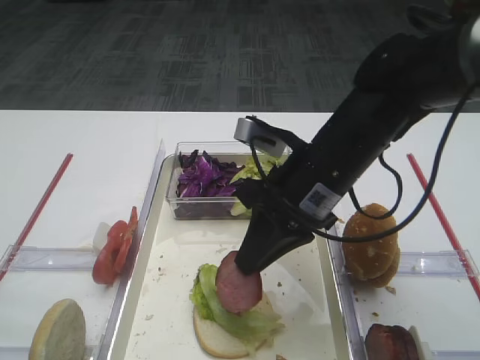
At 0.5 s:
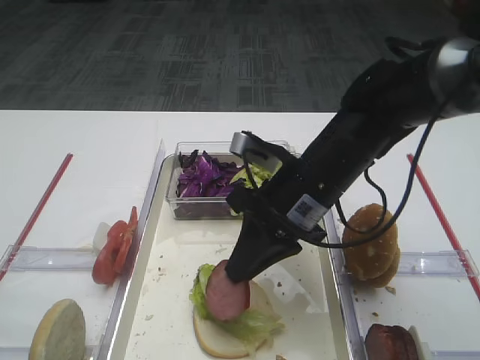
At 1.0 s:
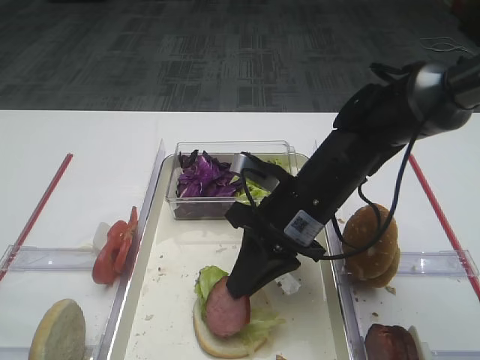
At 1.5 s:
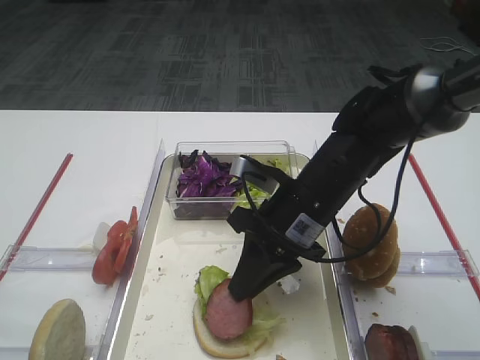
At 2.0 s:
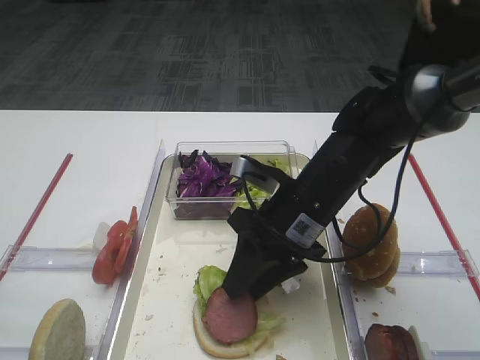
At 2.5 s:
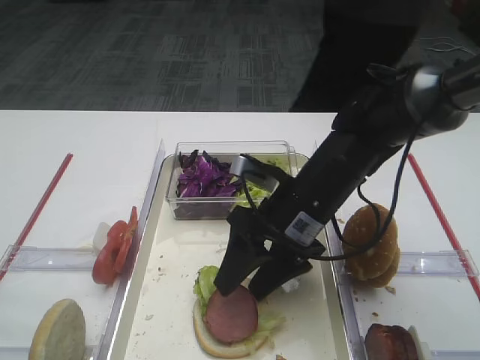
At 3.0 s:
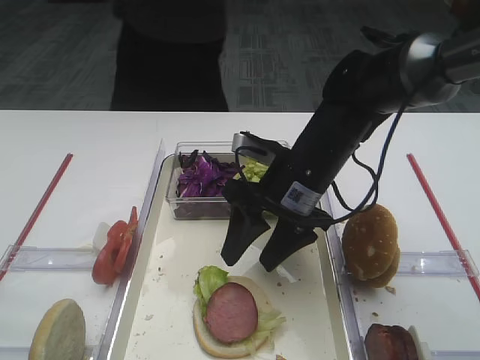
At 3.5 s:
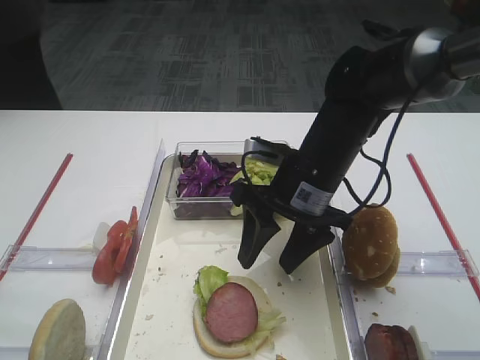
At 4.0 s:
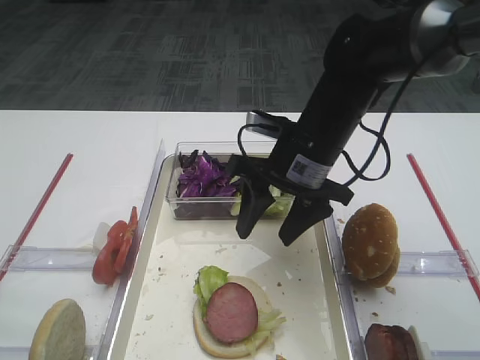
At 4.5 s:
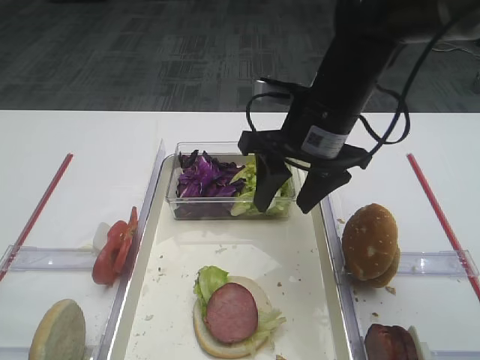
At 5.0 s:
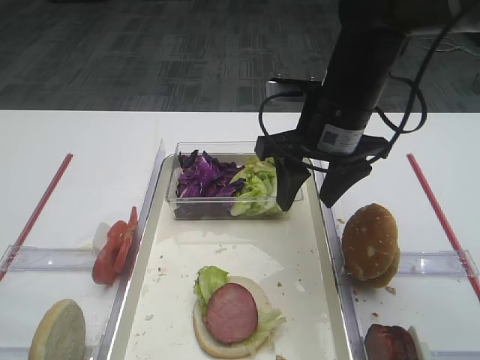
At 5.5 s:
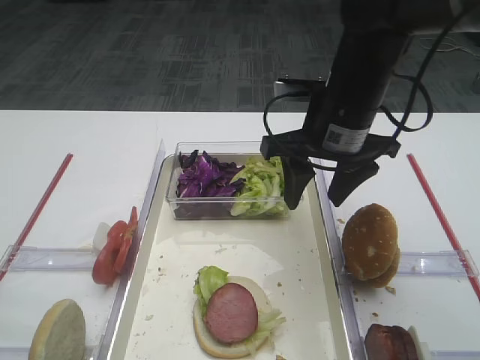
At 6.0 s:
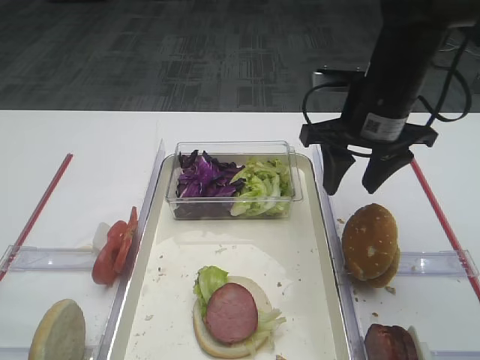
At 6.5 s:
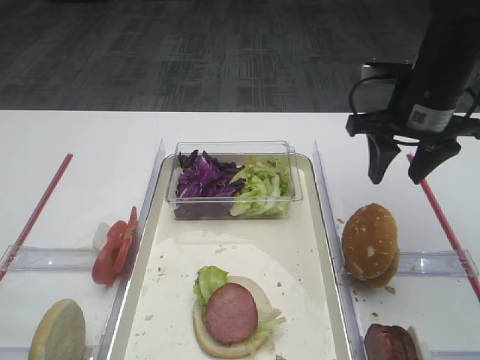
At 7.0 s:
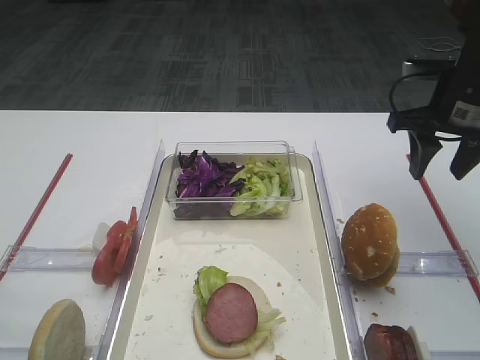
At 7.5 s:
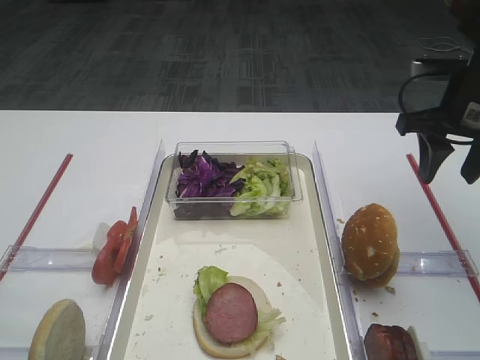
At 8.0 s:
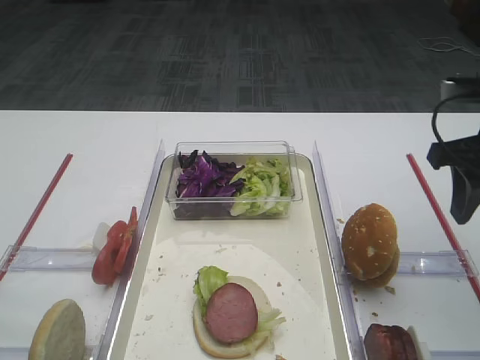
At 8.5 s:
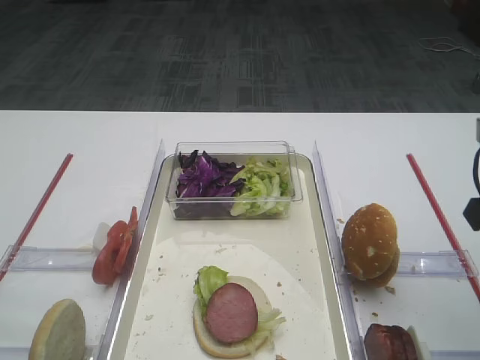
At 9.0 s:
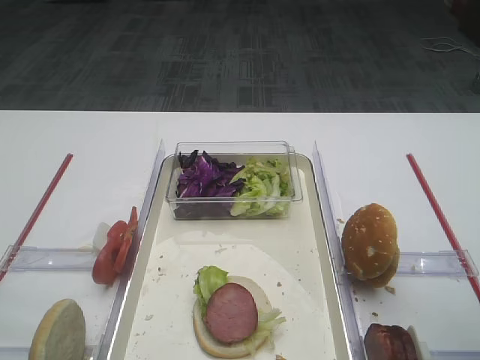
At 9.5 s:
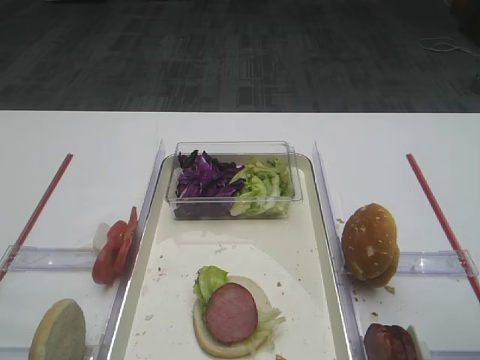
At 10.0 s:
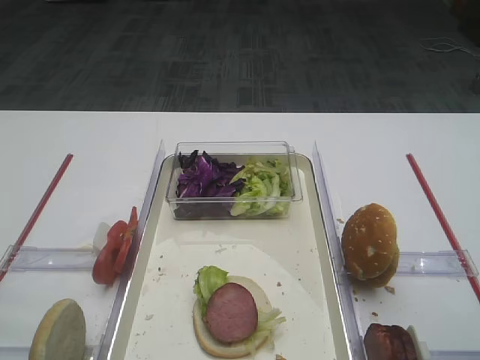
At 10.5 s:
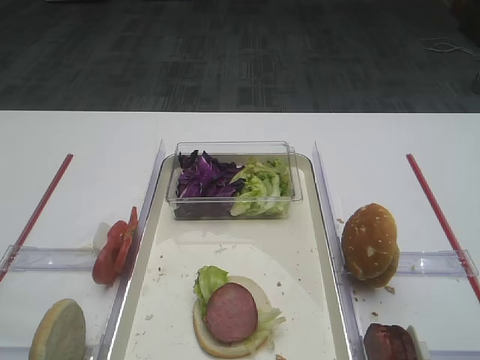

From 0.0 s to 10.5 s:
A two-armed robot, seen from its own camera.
Step, from 0.0 s to 2.5 s: Place the cutlet on the lettuce leaf with the right gripper.
From 0.0 s to 2.0 s: The right gripper is displaced downward by some 5 cm, and opens.
From 2.0 s to 4.0 s: The right gripper ends up some 5 cm from where it was, and opens its fingers.
From 4.0 s to 6.5 s: The right gripper shifts approximately 15 cm to the right.
From 6.5 s to 8.5 s: The right gripper goes roughly 15 cm backward.

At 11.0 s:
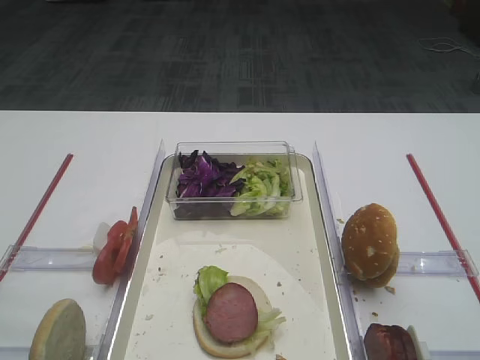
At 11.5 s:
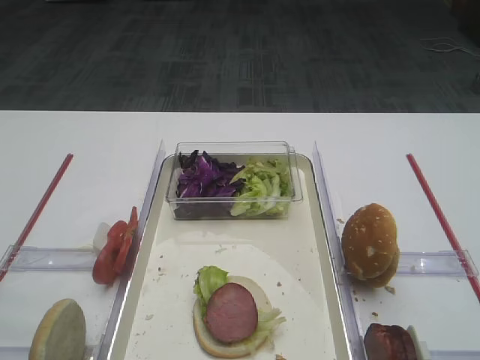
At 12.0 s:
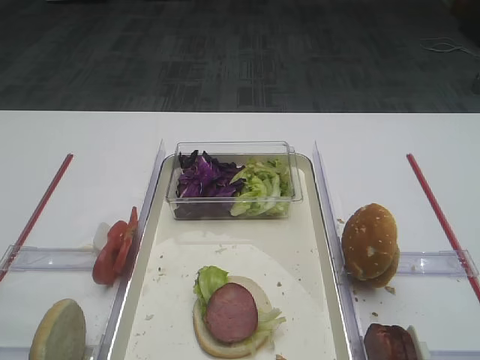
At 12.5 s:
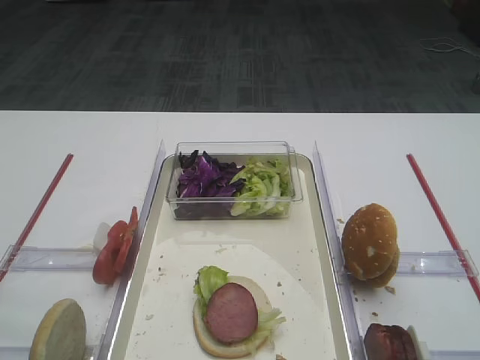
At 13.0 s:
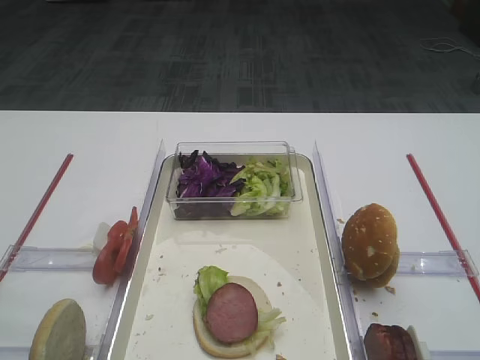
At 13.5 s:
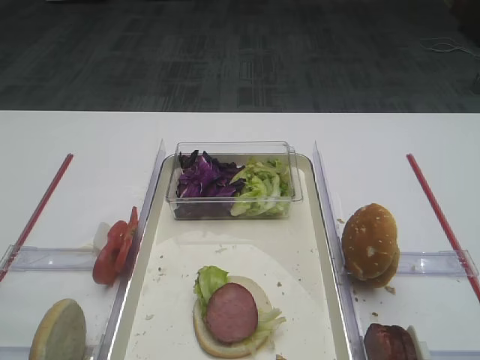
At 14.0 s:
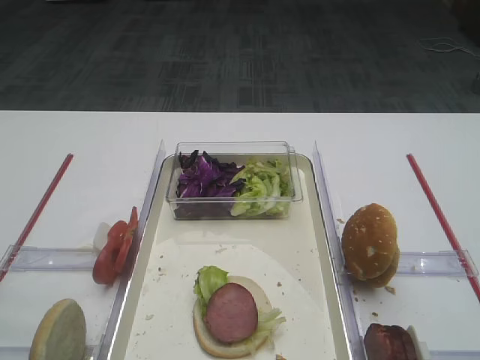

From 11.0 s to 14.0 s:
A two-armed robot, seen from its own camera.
From 12.5 s to 14.0 s: Neither gripper changes place.

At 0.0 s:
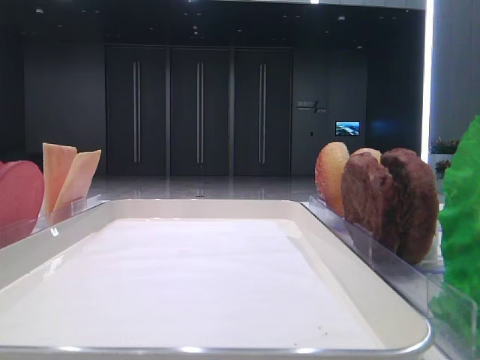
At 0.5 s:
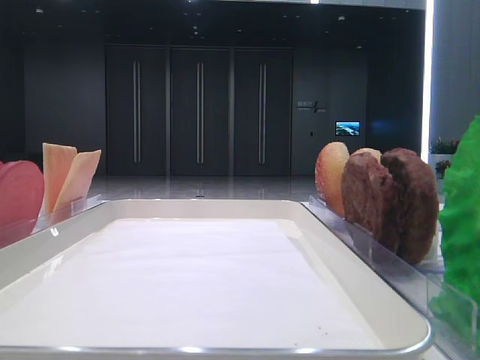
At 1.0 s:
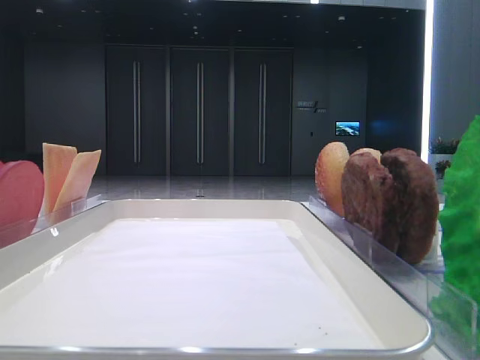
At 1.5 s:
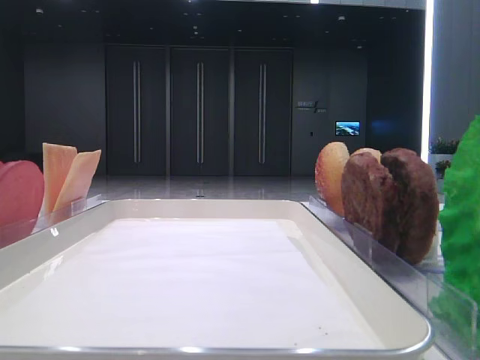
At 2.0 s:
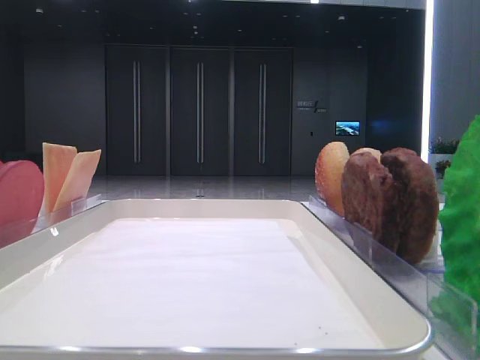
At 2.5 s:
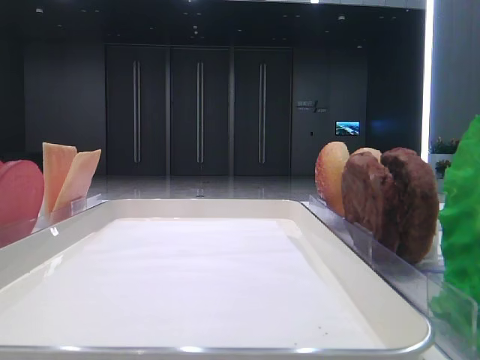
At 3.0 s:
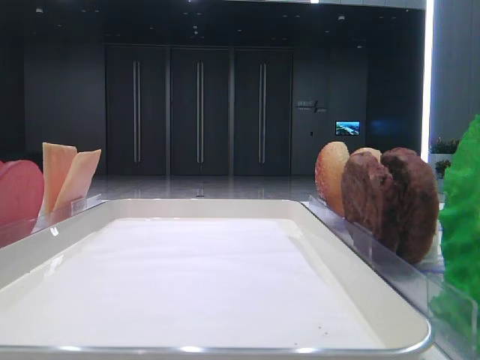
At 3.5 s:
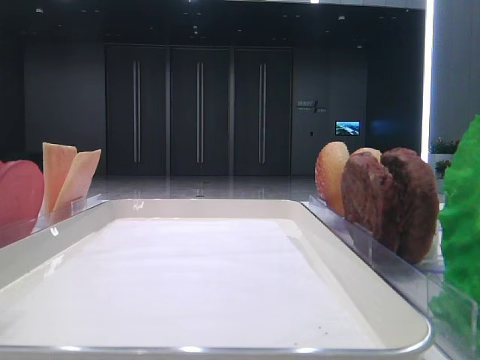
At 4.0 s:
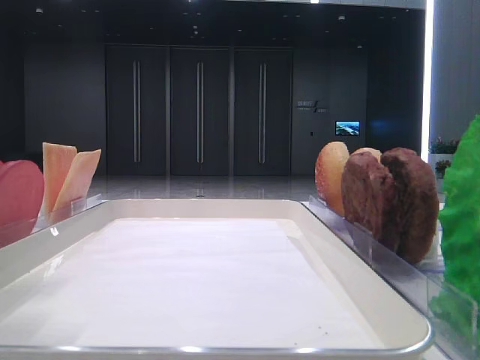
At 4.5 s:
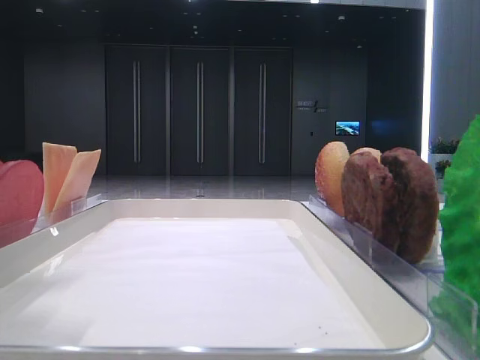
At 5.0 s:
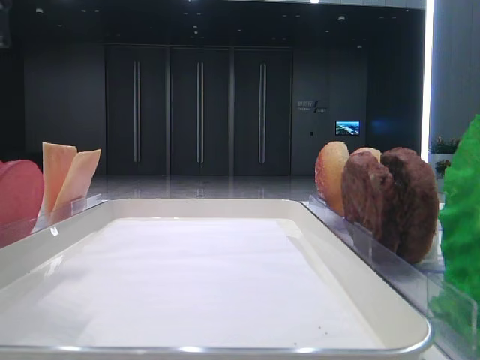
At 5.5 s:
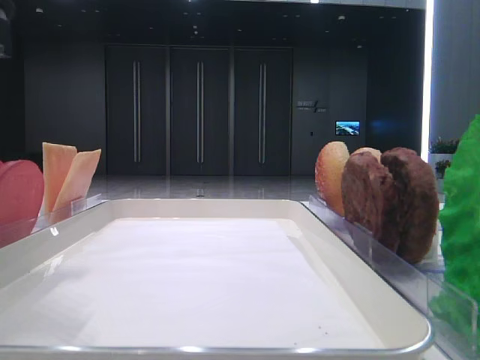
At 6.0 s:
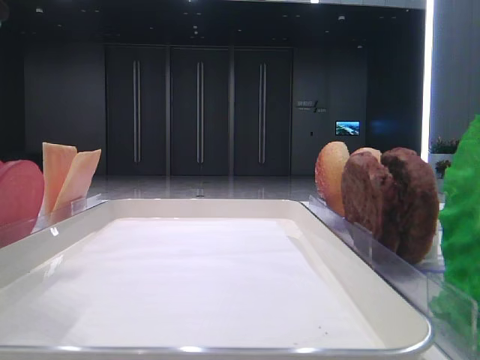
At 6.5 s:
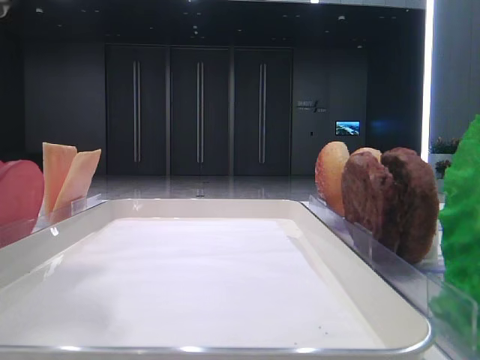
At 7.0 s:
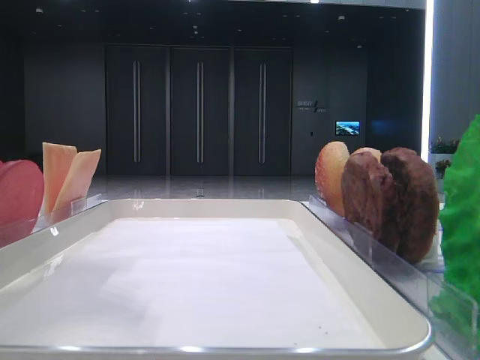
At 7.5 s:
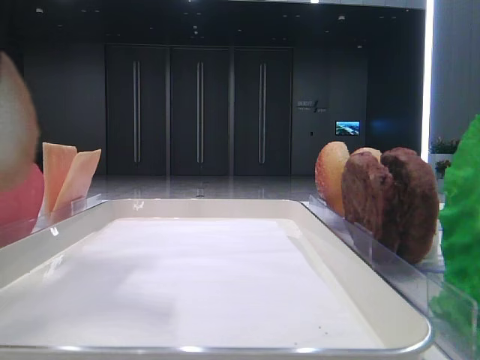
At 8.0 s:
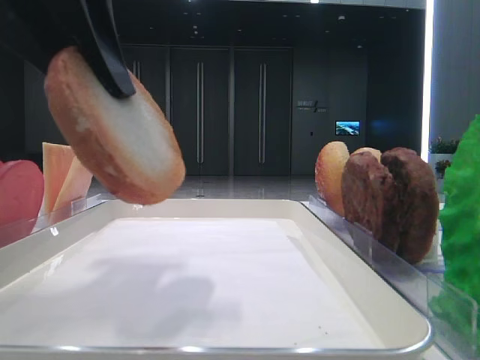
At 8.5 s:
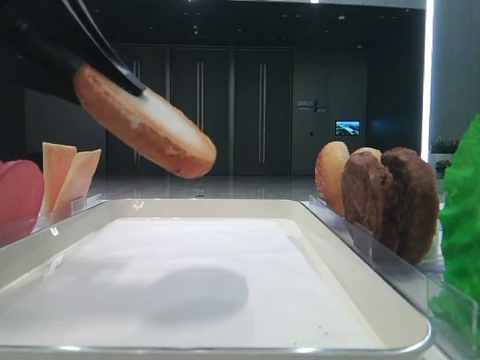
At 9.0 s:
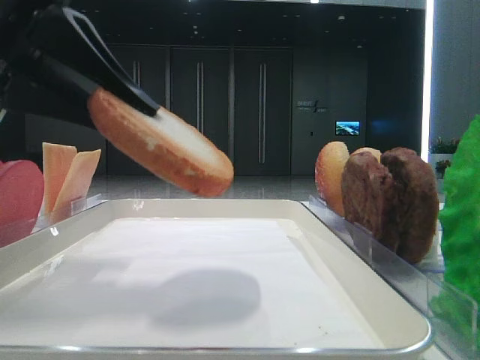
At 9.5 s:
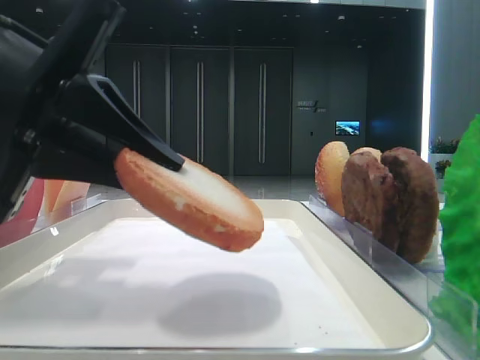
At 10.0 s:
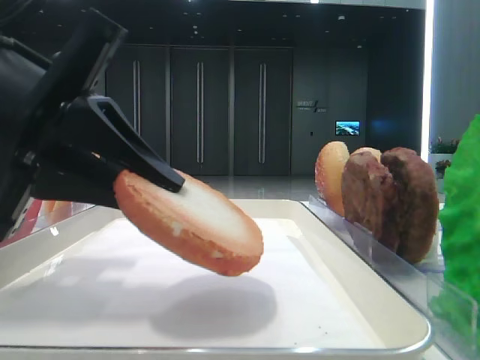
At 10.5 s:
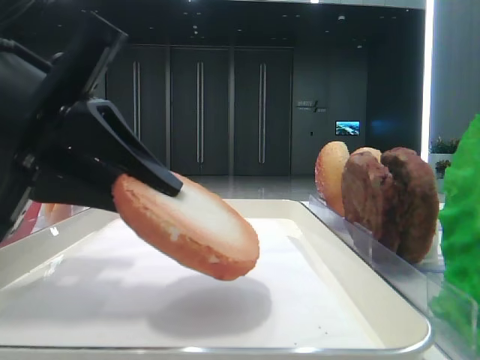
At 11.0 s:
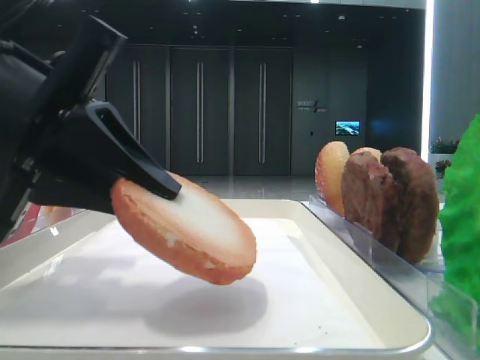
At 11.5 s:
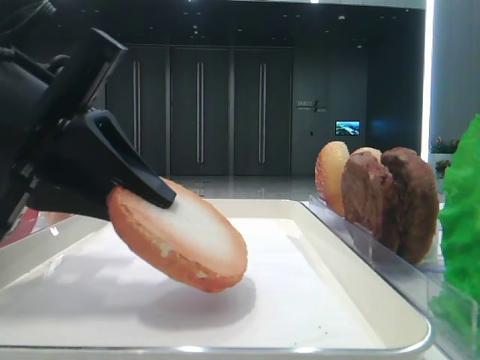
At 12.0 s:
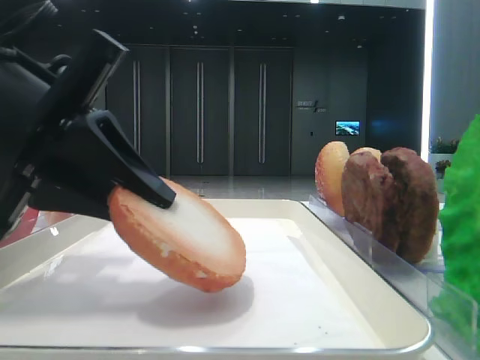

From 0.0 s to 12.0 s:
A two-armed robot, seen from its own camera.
From 2.0 s to 4.0 s: The left gripper is displaced to the right by about 10 cm, and opens its fingers.
From 4.0 s to 6.0 s: The left gripper travels downward by about 5 cm, and closes.
From 6.0 s to 8.0 s: The left gripper shifts some 5 cm to the right.
From 8.0 s to 10.0 s: The left gripper heads downward, covering some 10 cm.
From 10.0 s to 12.0 s: The grippers stay close to where they were, moving slightly.
